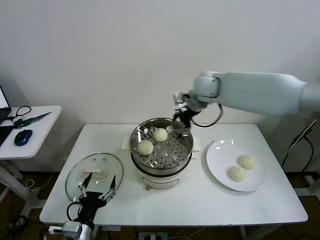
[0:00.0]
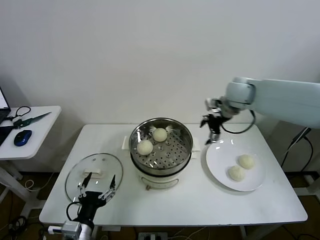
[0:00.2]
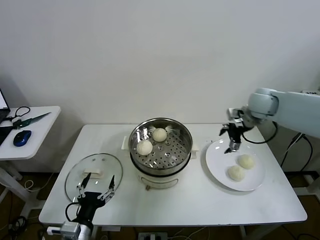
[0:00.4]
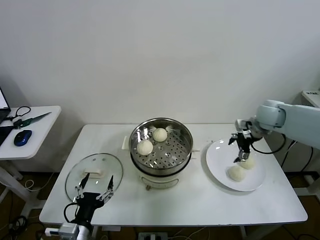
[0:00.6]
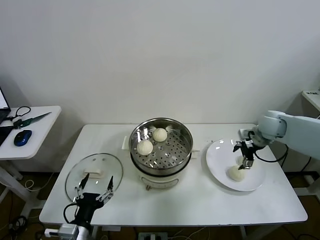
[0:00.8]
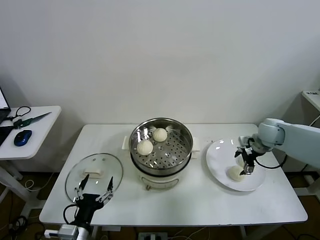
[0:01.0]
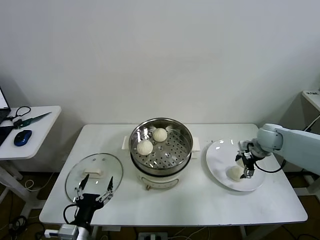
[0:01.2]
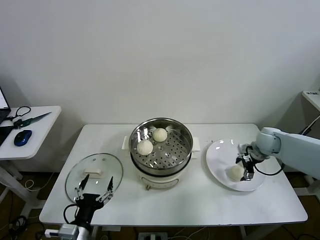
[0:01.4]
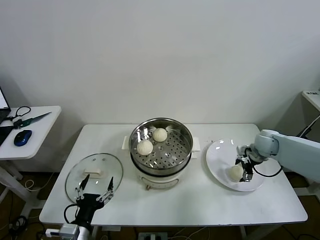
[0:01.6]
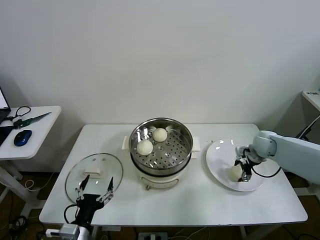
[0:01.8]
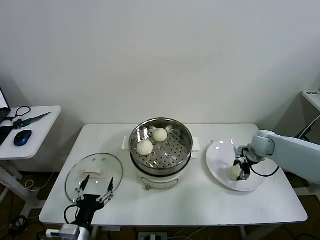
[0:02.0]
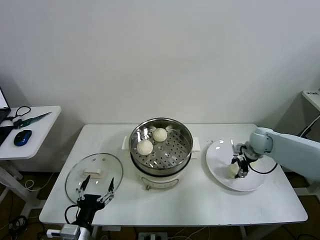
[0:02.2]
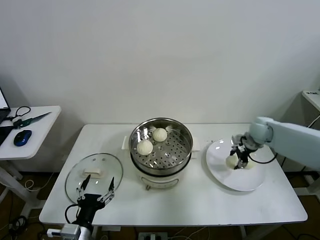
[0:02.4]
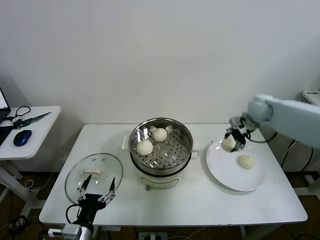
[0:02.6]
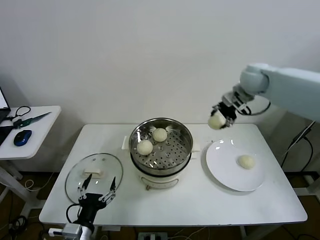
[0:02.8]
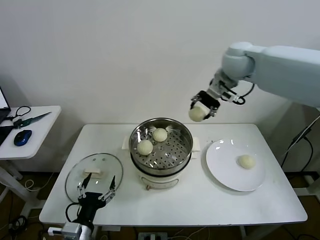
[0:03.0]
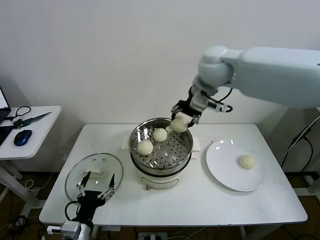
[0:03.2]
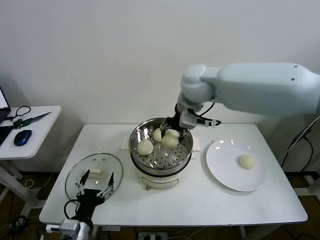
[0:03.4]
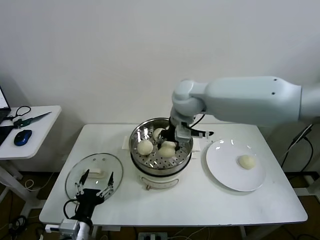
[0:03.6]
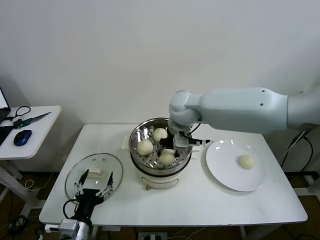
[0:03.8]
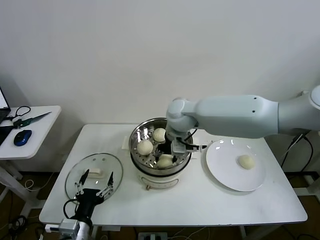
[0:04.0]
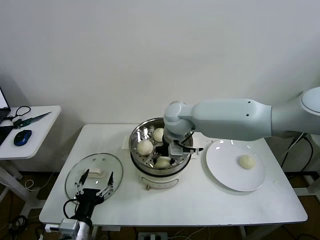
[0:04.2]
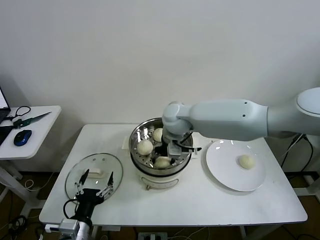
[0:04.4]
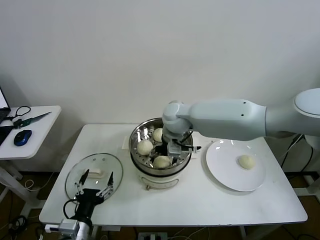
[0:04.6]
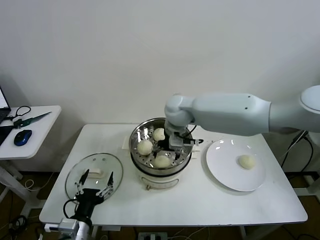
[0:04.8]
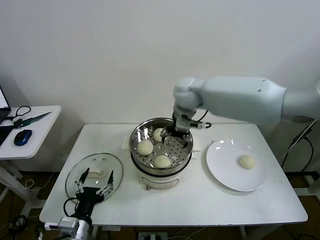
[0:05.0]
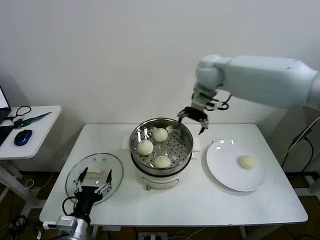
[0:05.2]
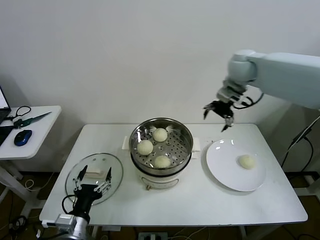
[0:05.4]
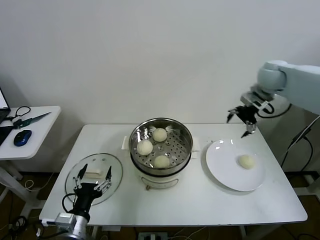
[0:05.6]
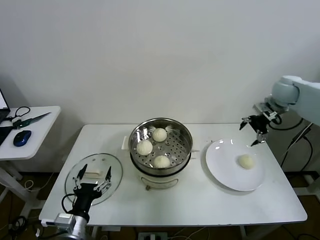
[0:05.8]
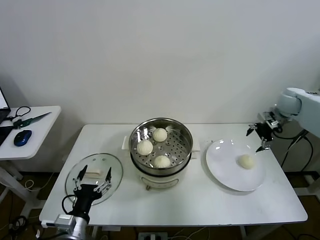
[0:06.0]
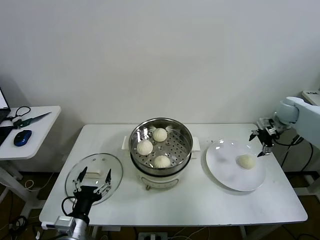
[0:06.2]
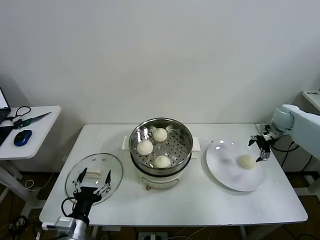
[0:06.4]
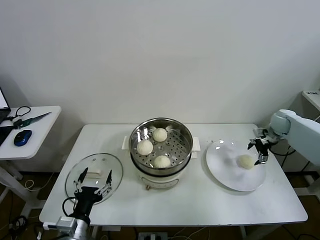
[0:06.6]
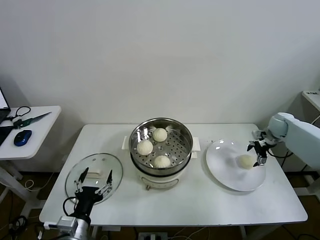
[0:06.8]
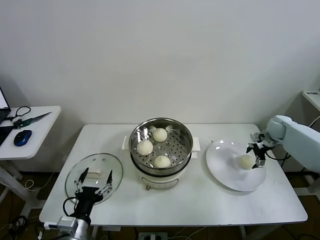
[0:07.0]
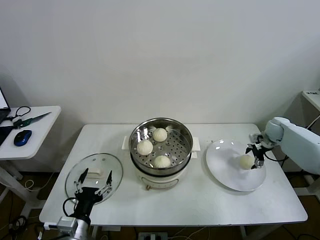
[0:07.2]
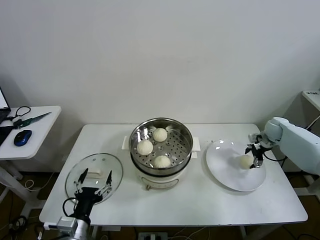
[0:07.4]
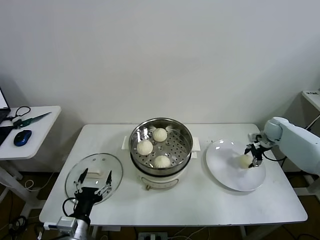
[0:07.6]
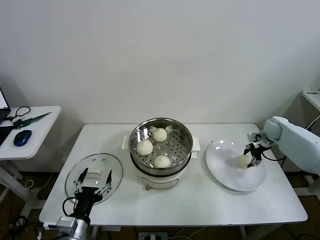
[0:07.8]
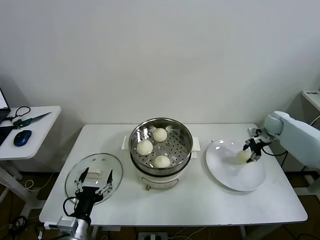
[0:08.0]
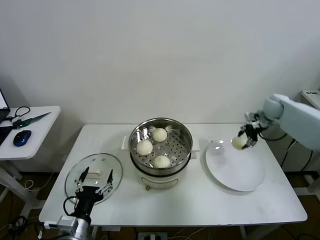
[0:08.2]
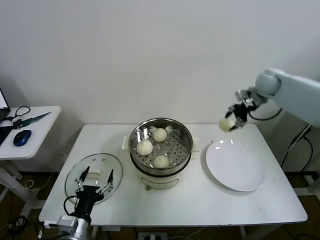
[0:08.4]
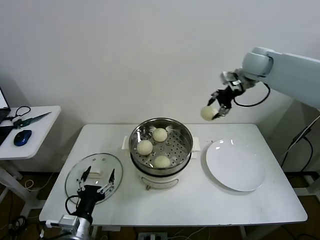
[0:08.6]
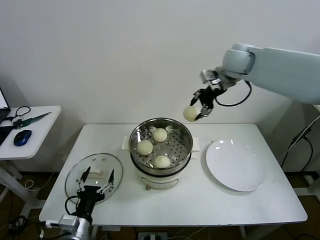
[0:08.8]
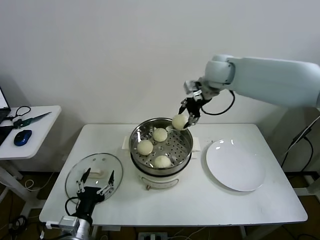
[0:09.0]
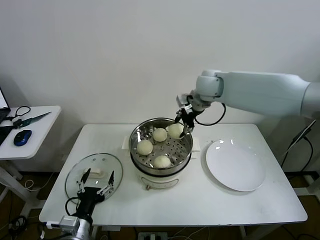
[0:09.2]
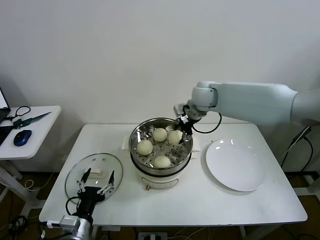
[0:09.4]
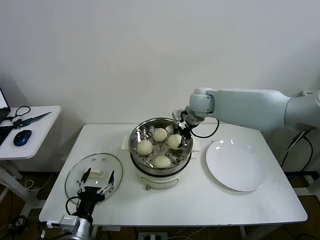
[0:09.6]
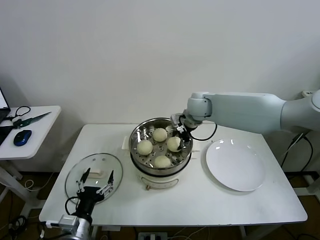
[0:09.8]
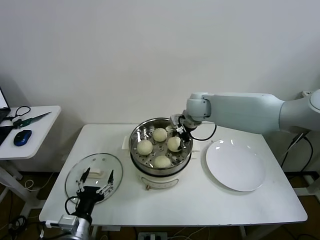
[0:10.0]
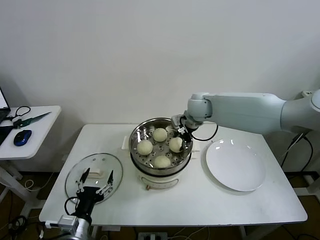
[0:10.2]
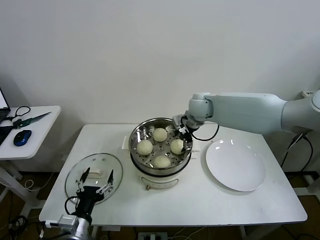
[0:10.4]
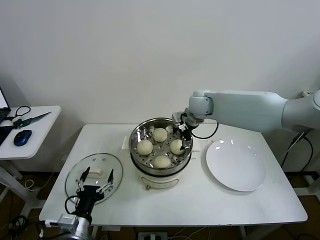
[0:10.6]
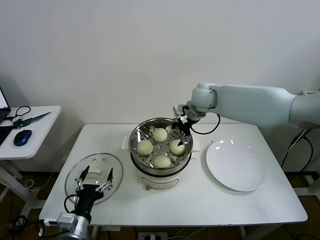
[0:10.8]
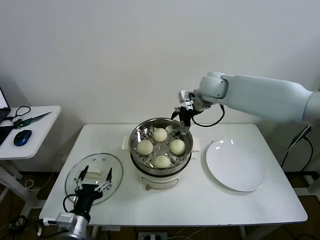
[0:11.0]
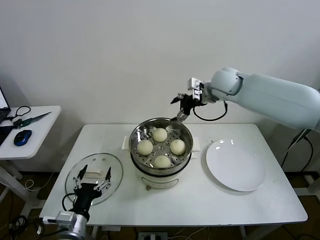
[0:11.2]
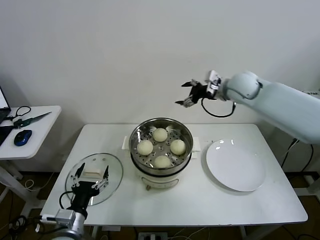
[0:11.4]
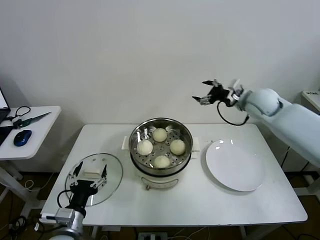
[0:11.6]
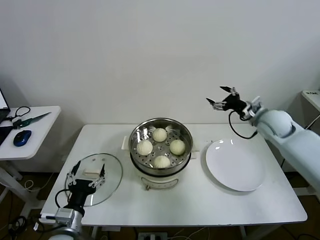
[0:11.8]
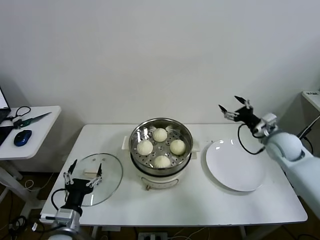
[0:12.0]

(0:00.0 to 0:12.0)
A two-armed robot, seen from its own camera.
Task of the whole recording: take steamed baozi put them in steamer then cover it.
Step, 0:00.0 - 0:01.8: Grasp the baozi in the plate with right gripper.
Step, 0:02.0 - 0:04.8: Place the baozi on the steamer with right gripper.
Step, 0:05.0 - 0:07.6: Grasp the baozi in the plate with right gripper.
Step, 0:07.8 - 0:10.8: Place the baozi on the steamer with right gripper.
0:00.0 - 0:01.6: The right gripper shifts roughly 30 cm downward and to the right.
0:01.6 - 0:03.0: The right gripper moves upward and to the left, roughly 40 cm, and closes its fingers.
0:03.0 - 0:04.4: The right gripper goes about 20 cm downward and to the left, and opens its fingers.
0:04.4 - 0:06.0: The right gripper shifts roughly 40 cm to the right.
0:06.0 - 0:07.6: The right gripper heads downward, covering roughly 15 cm, and closes up.
0:07.6 - 0:09.0: The right gripper is displaced to the left and upward by approximately 40 cm.
0:09.0 - 0:10.4: The right gripper goes roughly 10 cm downward, and opens.
0:10.4 - 0:12.0: The right gripper travels to the right, backward and downward by some 30 cm.

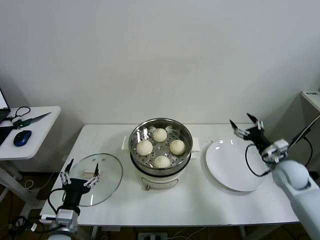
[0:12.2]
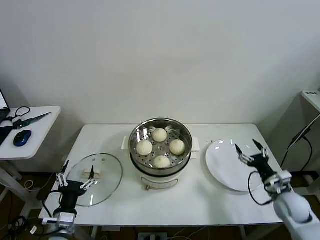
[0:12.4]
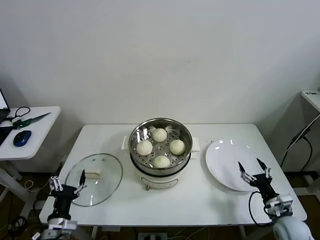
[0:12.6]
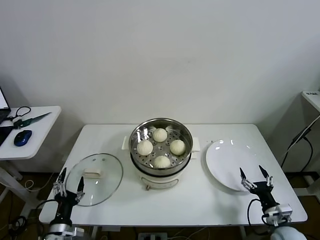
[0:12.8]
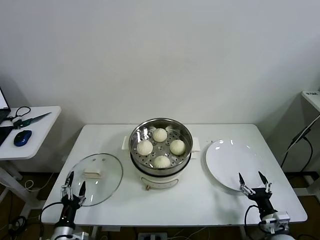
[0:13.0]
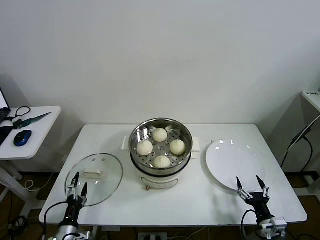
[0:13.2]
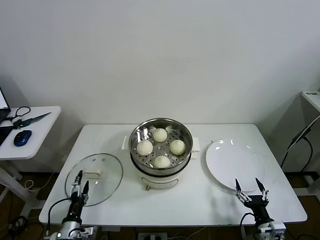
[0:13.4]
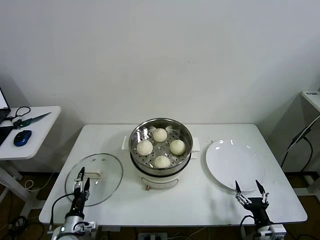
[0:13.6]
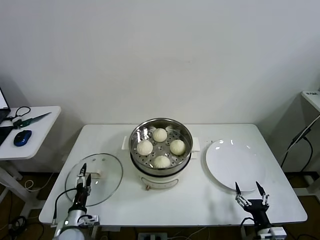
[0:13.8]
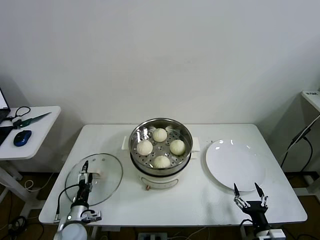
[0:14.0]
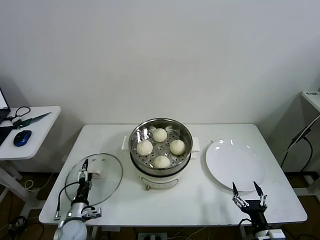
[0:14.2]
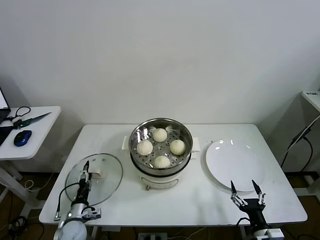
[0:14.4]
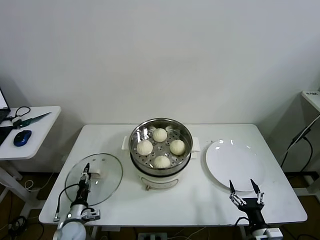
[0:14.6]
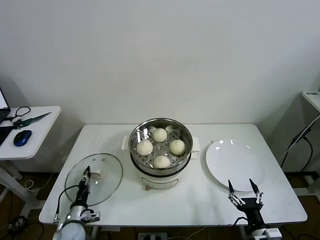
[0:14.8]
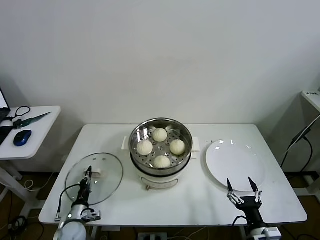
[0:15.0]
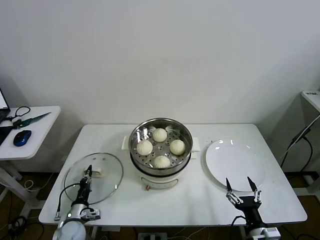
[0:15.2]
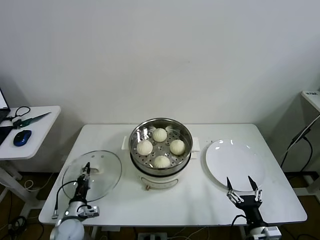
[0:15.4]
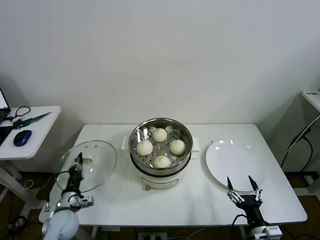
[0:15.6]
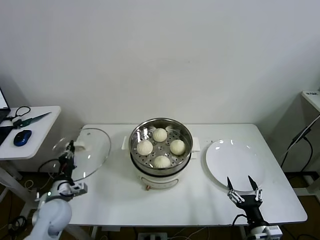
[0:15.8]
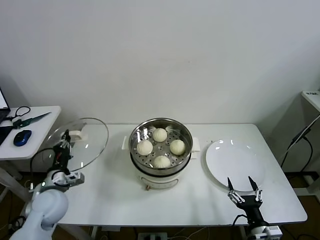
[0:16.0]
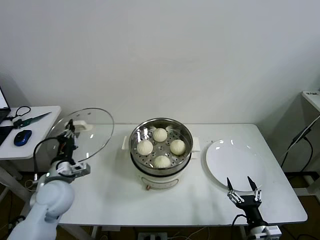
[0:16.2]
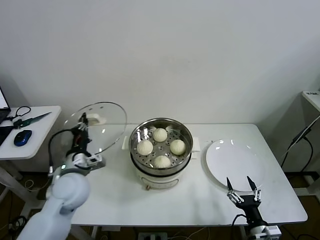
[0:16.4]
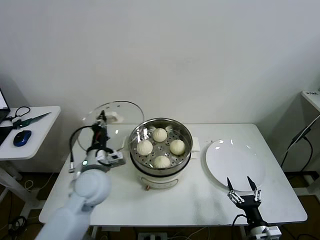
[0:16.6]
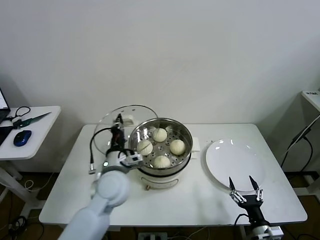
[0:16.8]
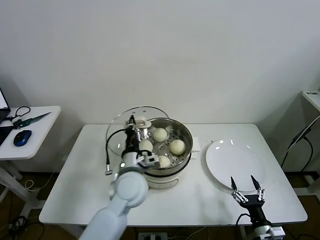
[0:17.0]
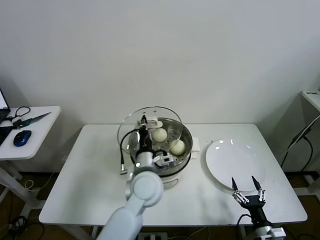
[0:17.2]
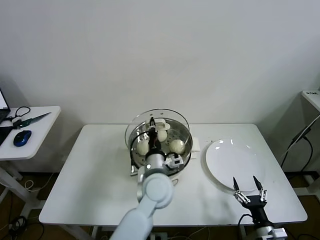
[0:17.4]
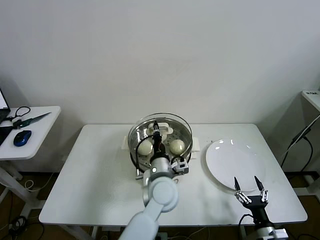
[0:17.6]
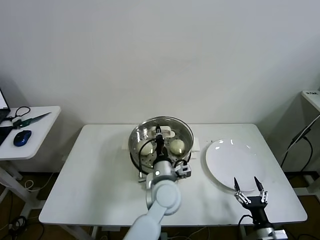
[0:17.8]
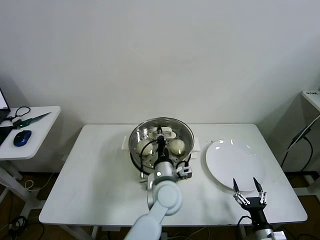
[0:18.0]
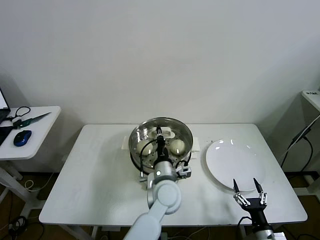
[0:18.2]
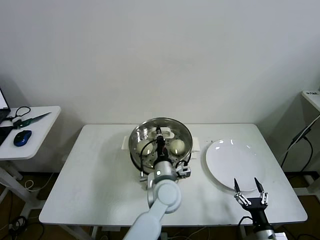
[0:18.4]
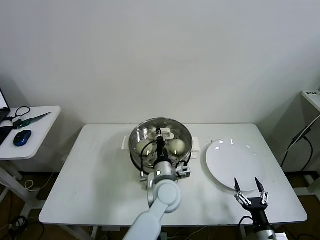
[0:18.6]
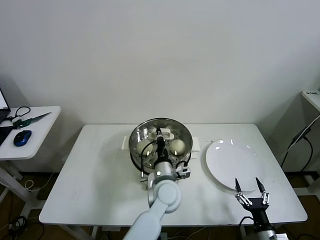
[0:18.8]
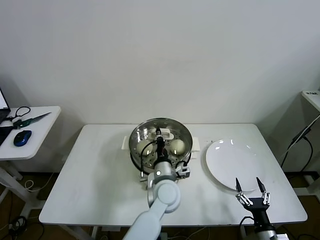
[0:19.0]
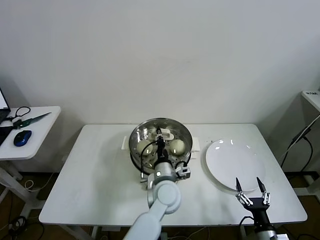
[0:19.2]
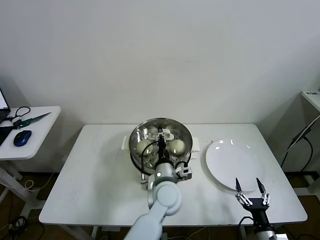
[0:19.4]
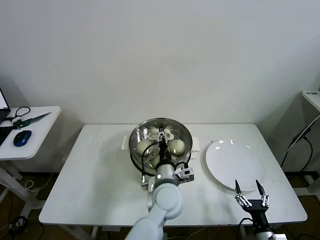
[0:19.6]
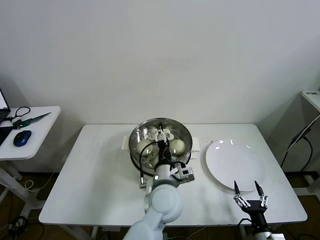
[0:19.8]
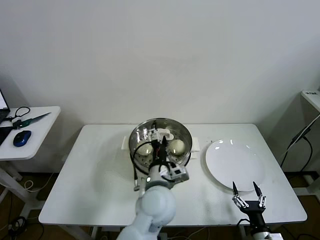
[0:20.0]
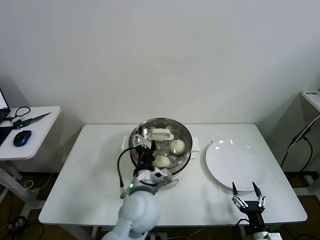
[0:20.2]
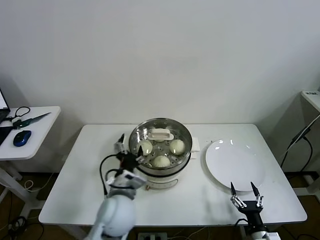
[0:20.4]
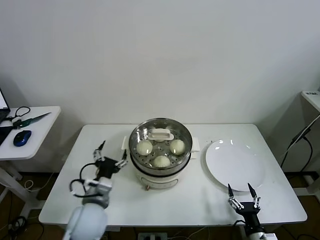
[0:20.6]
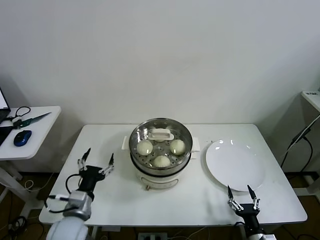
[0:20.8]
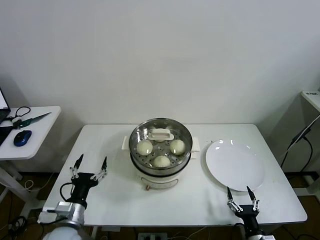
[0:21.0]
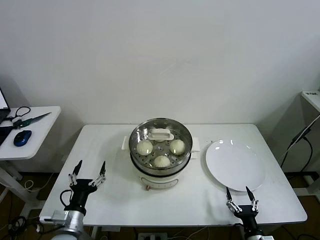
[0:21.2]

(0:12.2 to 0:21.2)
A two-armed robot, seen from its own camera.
Task of the whole recording: take steamed baozi put them in steamer then cover it.
Step, 0:12.2 - 0:15.0: Grasp the pot lid with left gripper.
Step, 0:15.2 - 0:19.6: Place the pot lid on the steamer with left gripper.
0:12.2 - 0:13.8: The left gripper shifts about 15 cm downward, while the right gripper goes roughly 25 cm backward and downward.
0:13.8 - 0:15.2: The right gripper changes place by about 5 cm. Meanwhile the left gripper closes.
0:15.2 - 0:16.6: The left gripper travels upward and to the right by roughly 30 cm.
0:16.6 - 0:18.2: The left gripper moves to the right, roughly 20 cm.
0:18.2 - 0:19.8: The left gripper opens its fingers.
0:19.8 - 0:21.2: The left gripper shifts about 30 cm to the left.

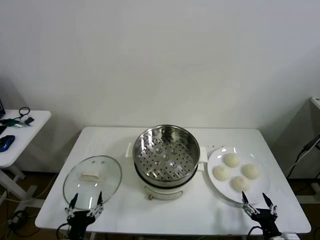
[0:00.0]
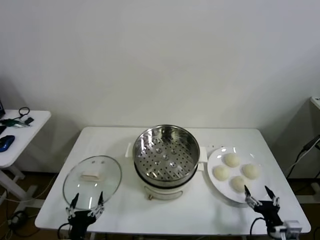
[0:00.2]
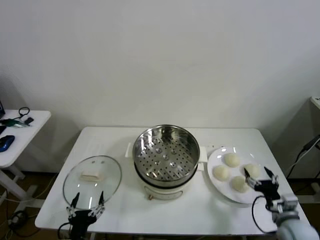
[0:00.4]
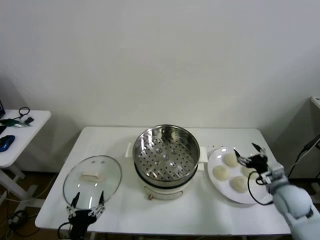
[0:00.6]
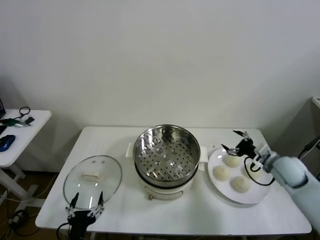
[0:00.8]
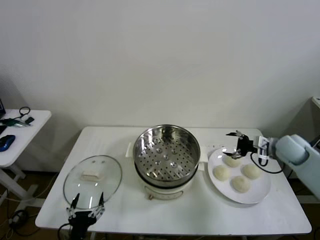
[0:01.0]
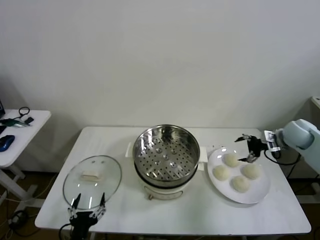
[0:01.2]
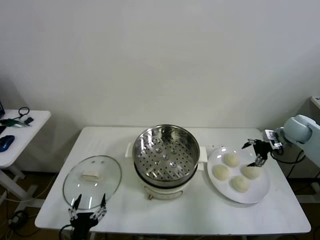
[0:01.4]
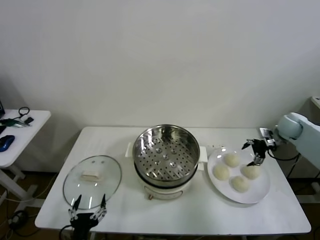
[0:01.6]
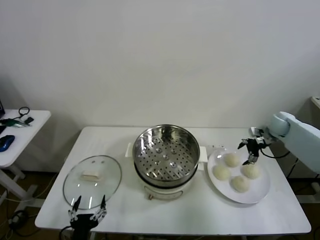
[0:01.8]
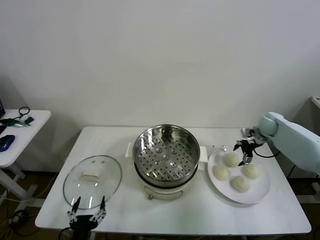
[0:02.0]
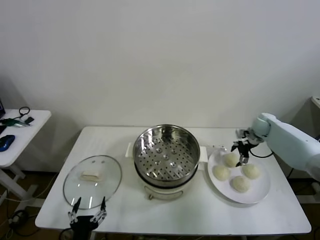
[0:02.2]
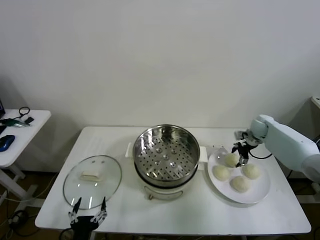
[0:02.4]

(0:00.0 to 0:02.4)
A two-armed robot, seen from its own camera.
Task of the whole recording: take steamed baozi put them in steamer then cover it.
0:01.2 - 0:02.4: The right gripper moves forward, downward and to the left, approximately 15 cm, and closes up.
